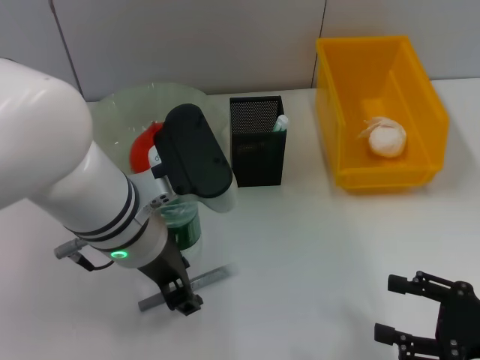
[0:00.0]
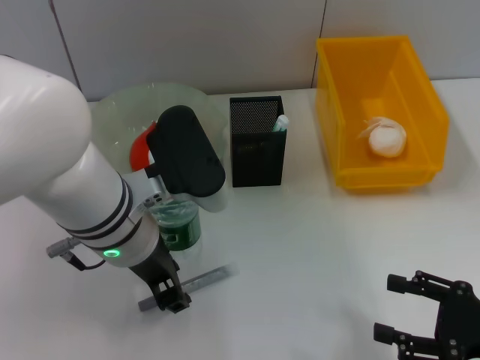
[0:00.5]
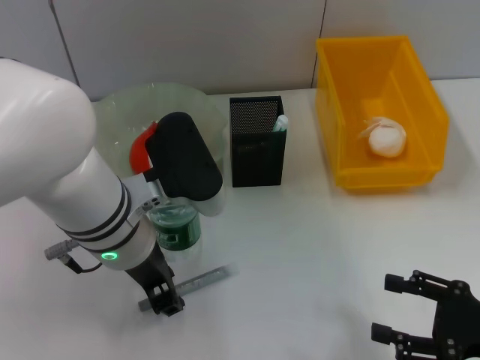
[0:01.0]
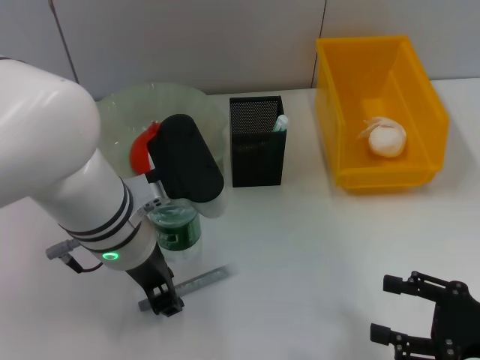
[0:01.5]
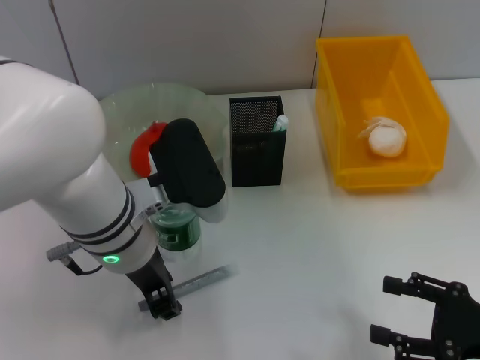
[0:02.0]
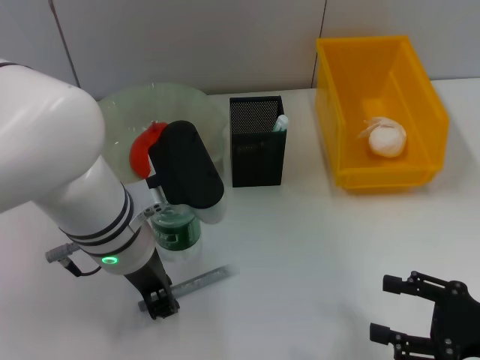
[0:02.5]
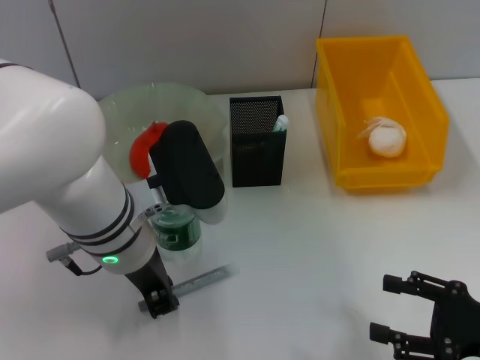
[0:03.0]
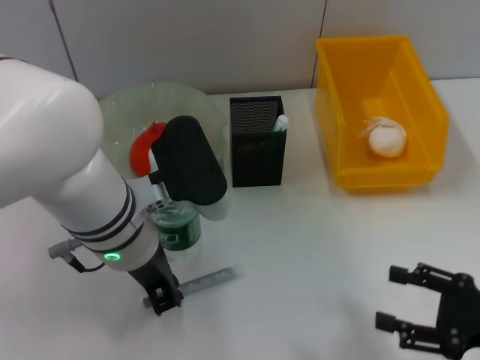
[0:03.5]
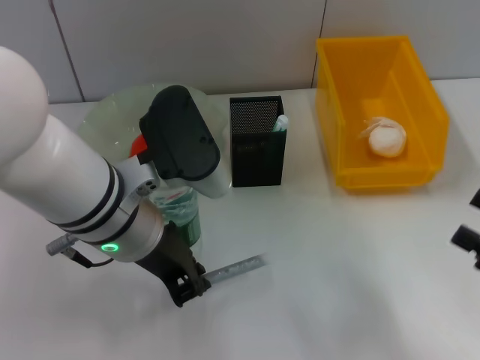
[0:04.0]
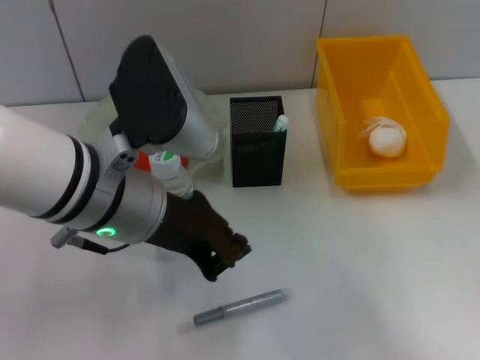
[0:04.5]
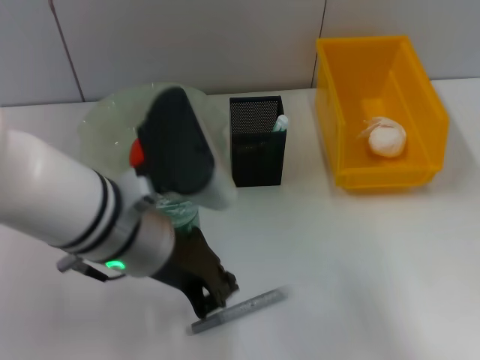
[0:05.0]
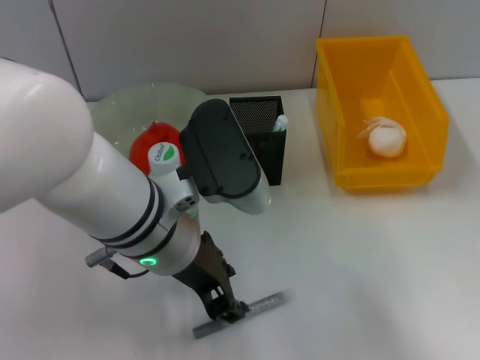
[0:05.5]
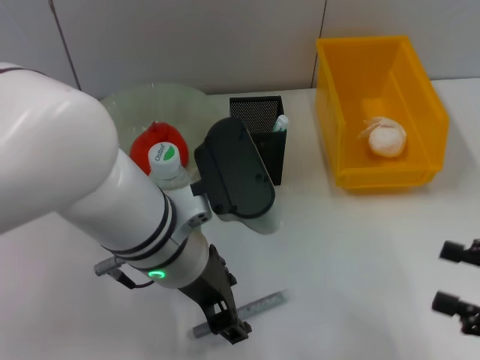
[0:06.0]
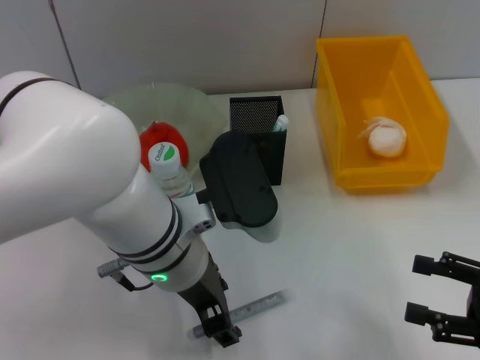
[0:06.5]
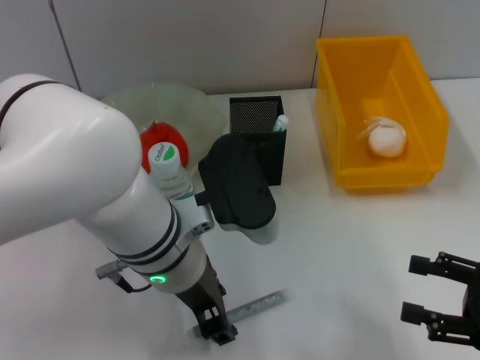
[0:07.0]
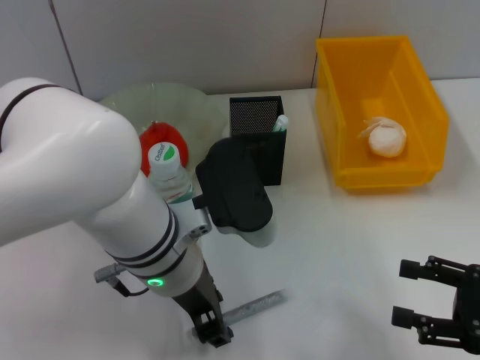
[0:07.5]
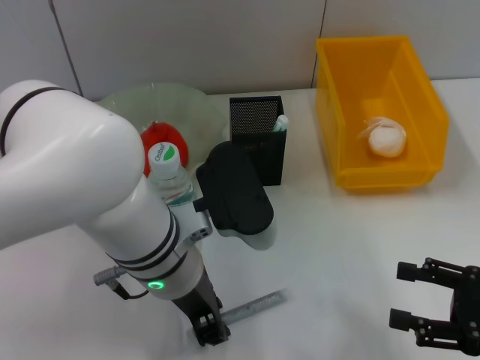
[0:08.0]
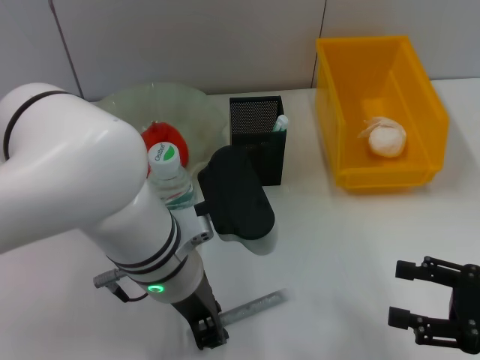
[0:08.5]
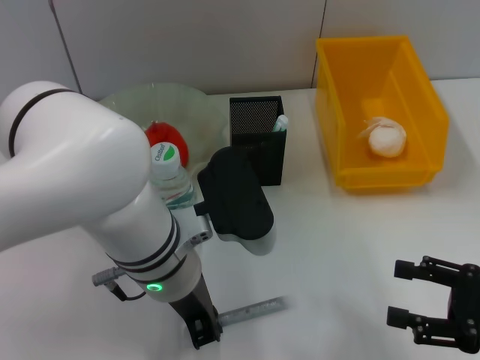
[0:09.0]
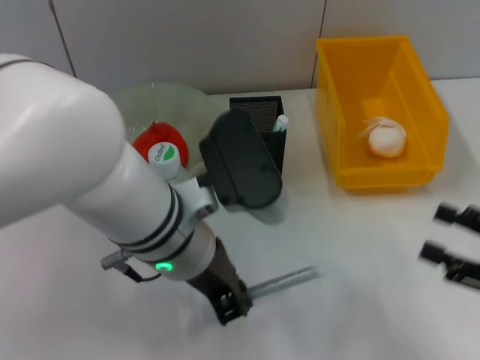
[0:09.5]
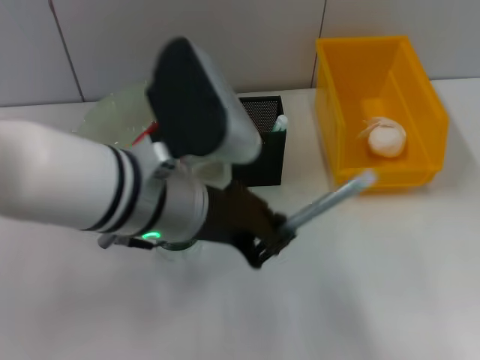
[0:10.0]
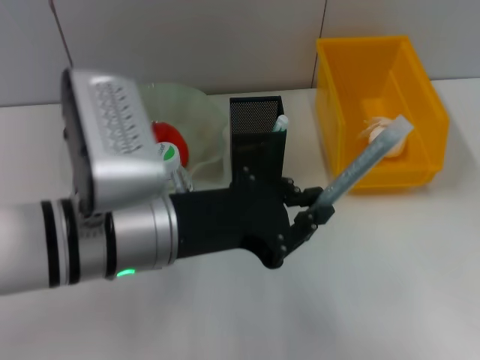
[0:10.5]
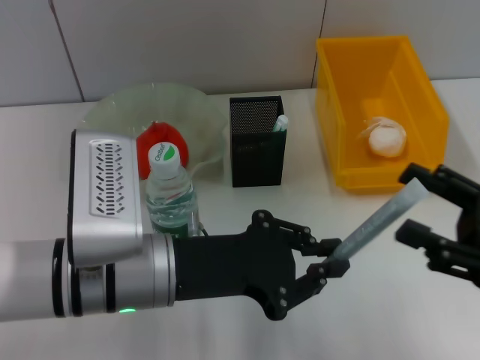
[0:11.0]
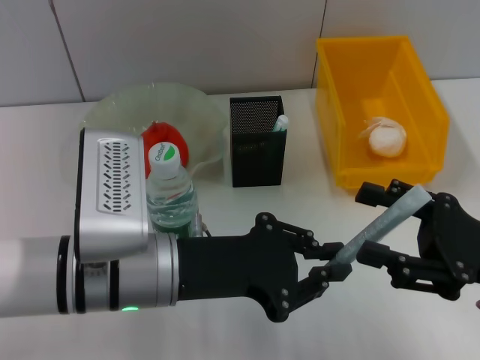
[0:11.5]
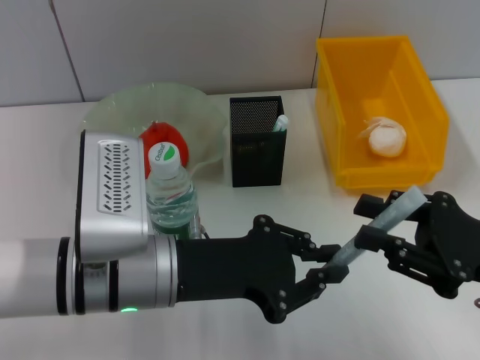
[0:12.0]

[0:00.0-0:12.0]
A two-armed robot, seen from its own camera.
Step, 0:00.0 to 0:08.5: Grab the gray glue with the left hand.
0:00.0 to 0:02.0: The grippers move only a little.
0:02.0 to 0:04.0: The left gripper closes its fingers. The right gripper shifts by roughly 5 cm.
0:04.0 to 0:06.0: The left gripper opens.
0:06.0 to 0:08.0: The left gripper closes its fingers.
0:08.0 to 0:10.0: The left gripper shifts about 5 cm upward, and closes. The right gripper changes place by roughly 5 cm.
0:10.0 to 0:12.0: The left gripper moves downward, approximately 5 cm. Meanwhile the right gripper moves to the left and forward, about 10 cm.

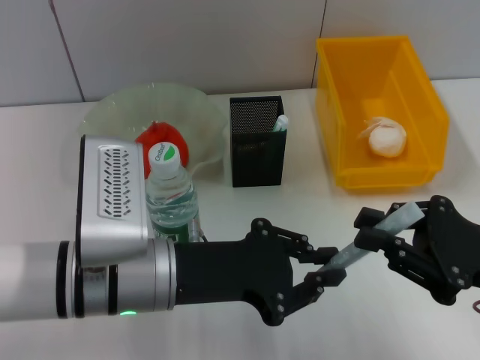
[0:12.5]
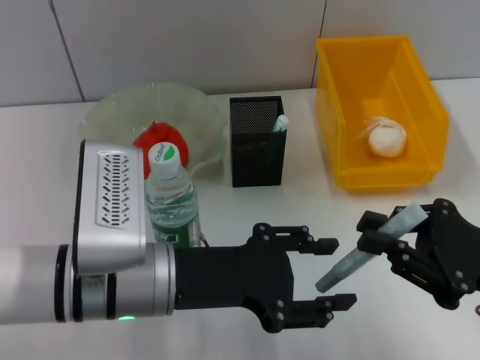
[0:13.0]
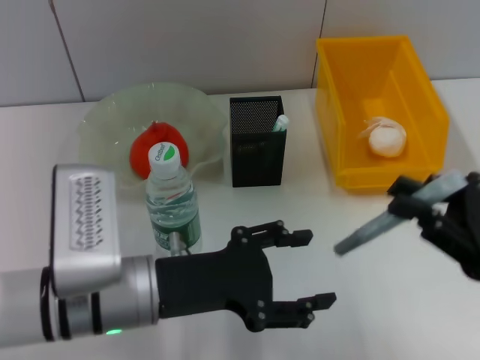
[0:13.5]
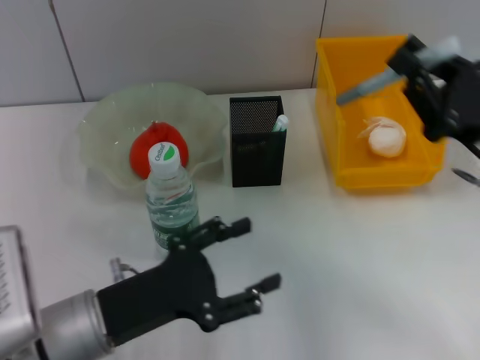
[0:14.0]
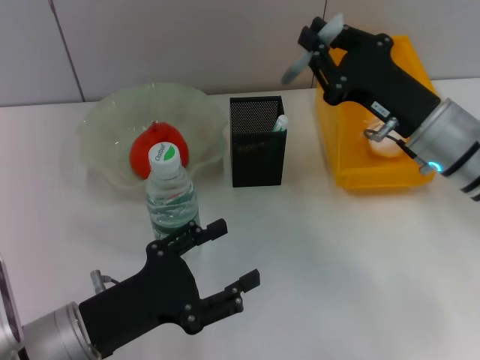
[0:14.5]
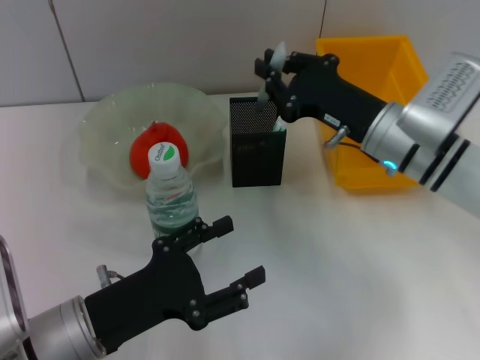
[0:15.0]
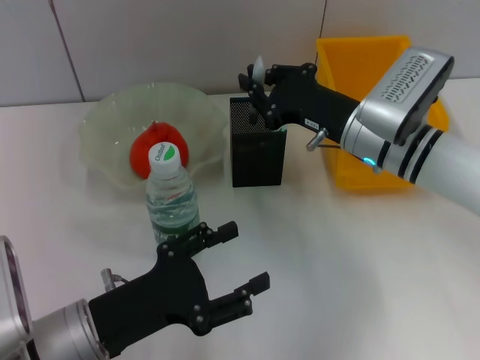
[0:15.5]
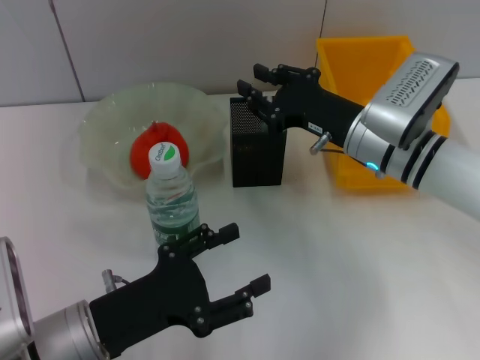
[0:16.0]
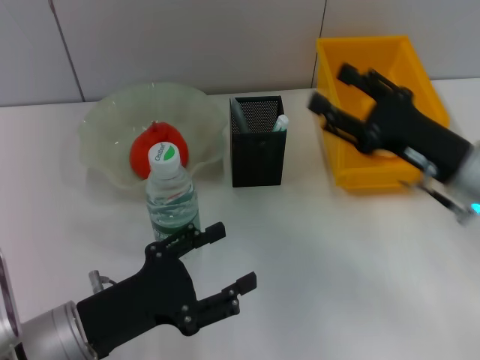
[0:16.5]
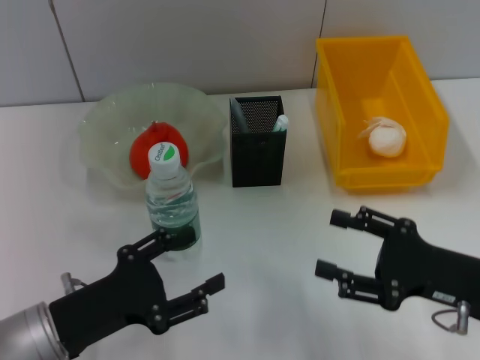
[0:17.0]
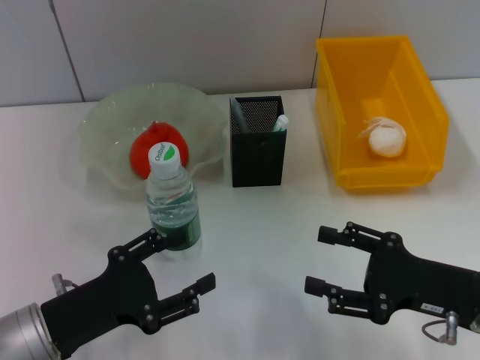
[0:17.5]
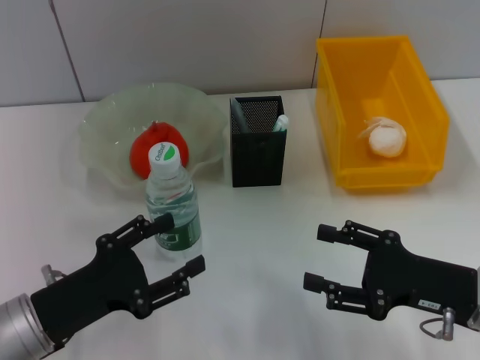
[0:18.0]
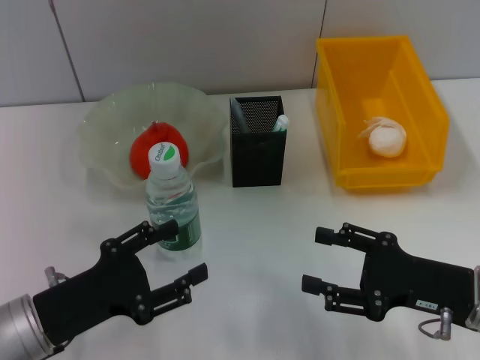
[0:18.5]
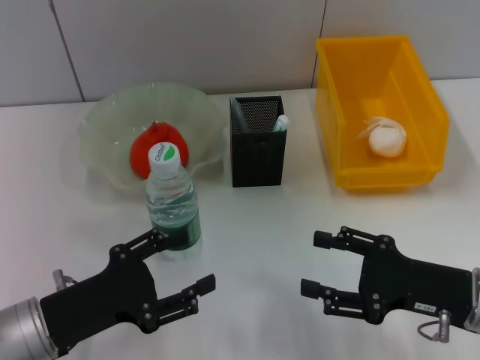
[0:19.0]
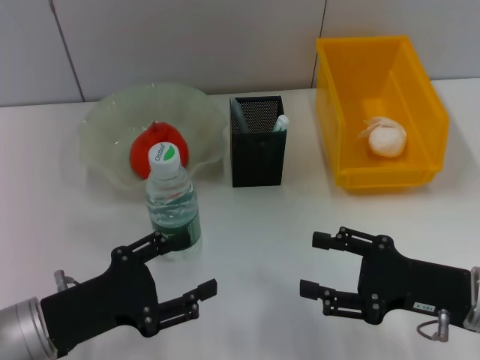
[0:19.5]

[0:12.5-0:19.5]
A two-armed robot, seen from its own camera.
Step, 0:13.0 to 0:16.0: Place the gray spring-action pen into the pen holder with the right hand.
0:12.5 to 0:14.5: The left gripper heads to the left and downward, covering approximately 10 cm, and opens. Meanwhile the right gripper moves forward and to the left, some 15 cm.
0:14.5 to 0:16.0: The right gripper changes place by some 5 cm.
0:16.0 to 0:17.5: The right gripper moves backward and to the right, some 20 cm, and opens.
0:17.5 to 0:19.5: Neither gripper changes place.

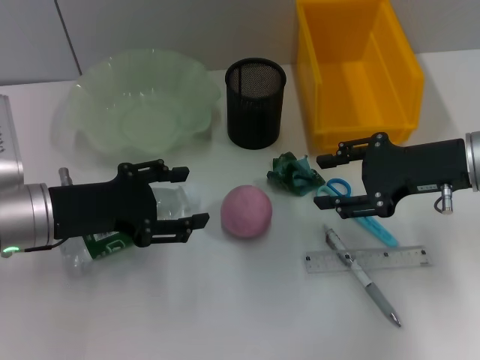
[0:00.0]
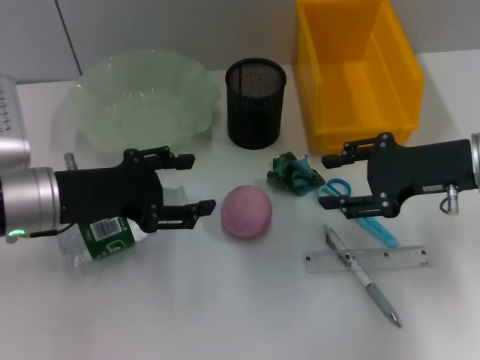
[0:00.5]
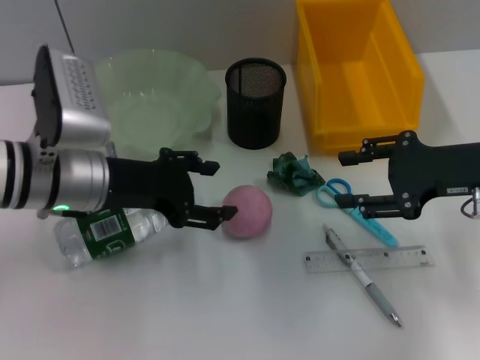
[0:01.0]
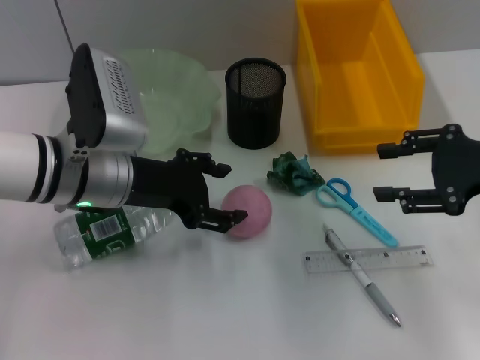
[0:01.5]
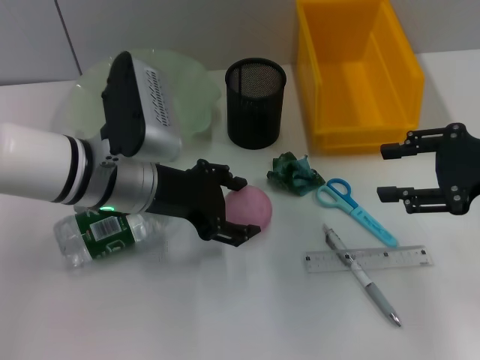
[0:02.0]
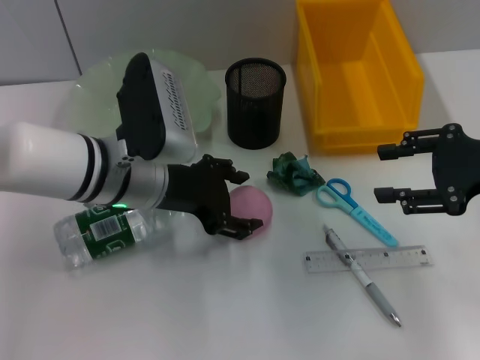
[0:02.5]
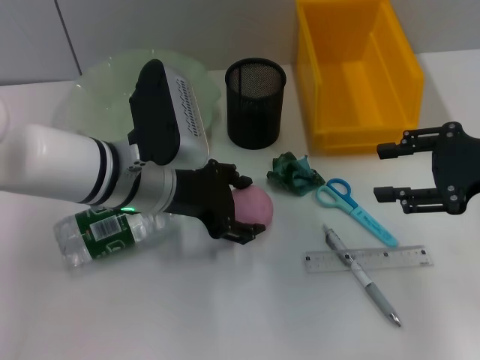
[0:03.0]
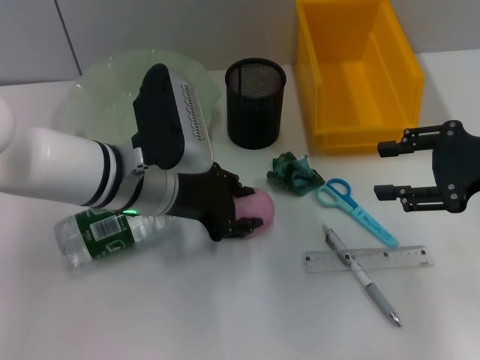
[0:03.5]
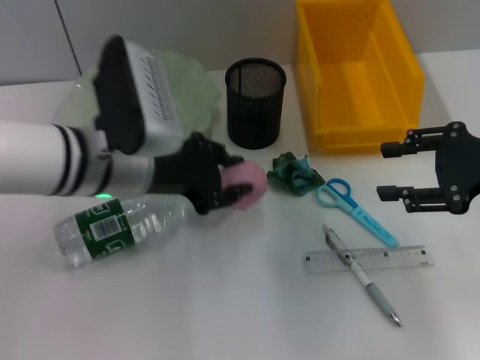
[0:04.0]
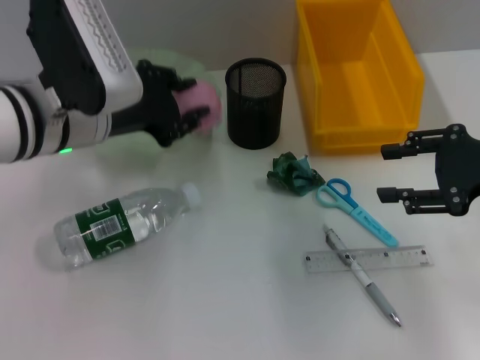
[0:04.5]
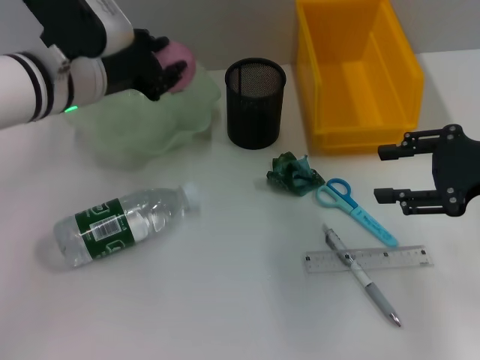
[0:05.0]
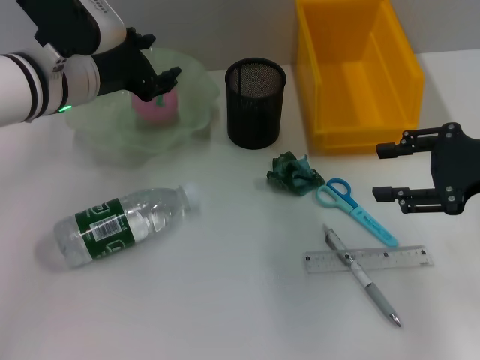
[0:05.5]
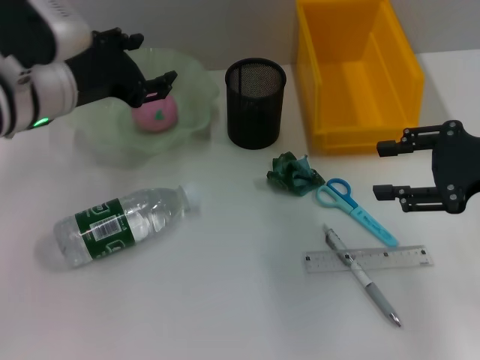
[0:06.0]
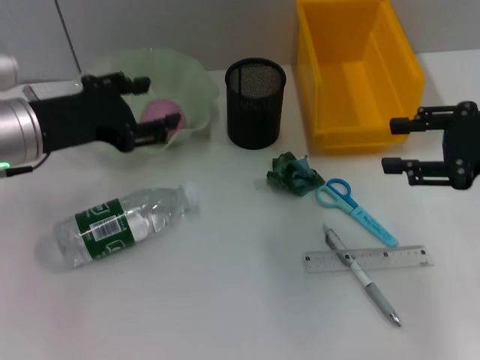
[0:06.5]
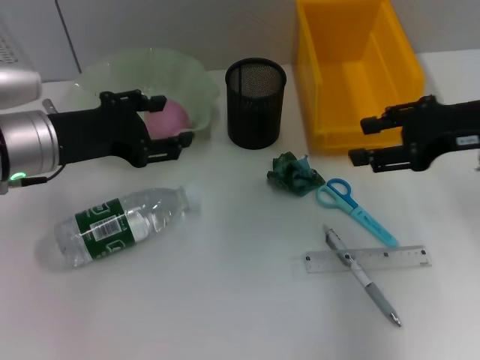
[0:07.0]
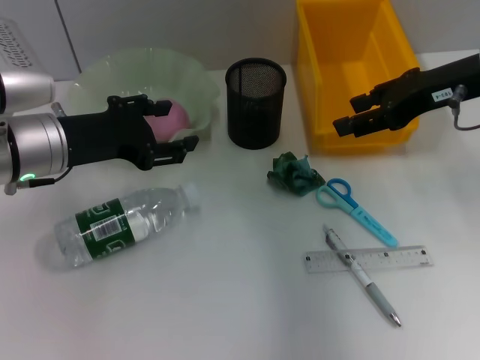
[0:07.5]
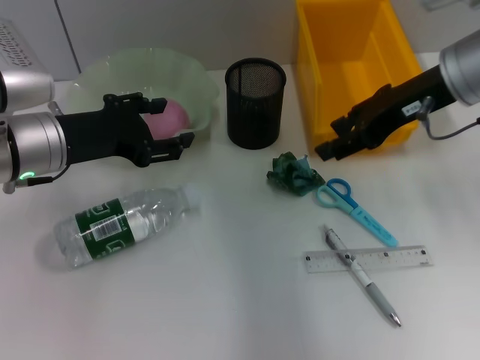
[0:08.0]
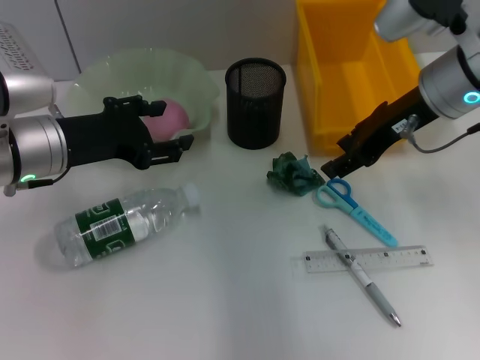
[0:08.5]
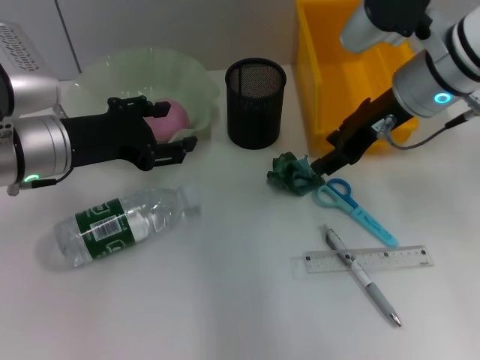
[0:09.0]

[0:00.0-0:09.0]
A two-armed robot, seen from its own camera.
Step, 0:00.0 to 0:03.5: Grab the peach with the left hand.
Step, 0:04.0 to 0:05.5: Place the peach into the fruit bowl with the left hand.
0:00.0 to 0:02.0: The left gripper shifts approximately 10 cm to the right, while the right gripper goes some 5 cm to the right.
0:02.0 to 0:04.5: The left gripper goes roughly 5 cm upward, and closes its fingers.
0:04.5 to 0:07.0: The left gripper moves to the left, some 5 cm, and opens, while the right gripper shifts by roughly 5 cm.
0:07.0 to 0:09.0: The right gripper shifts about 10 cm to the left and forward.
